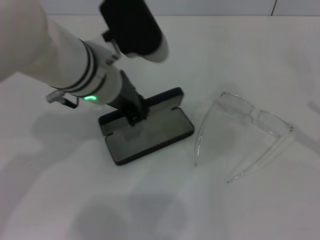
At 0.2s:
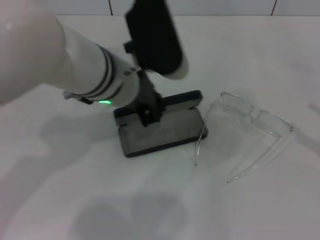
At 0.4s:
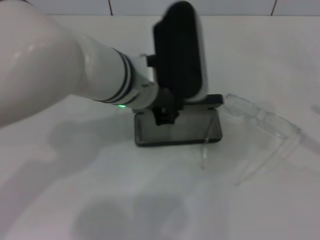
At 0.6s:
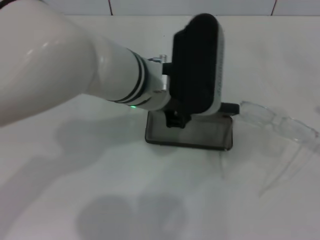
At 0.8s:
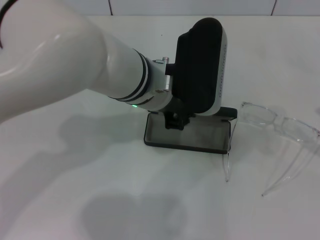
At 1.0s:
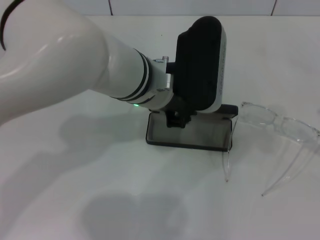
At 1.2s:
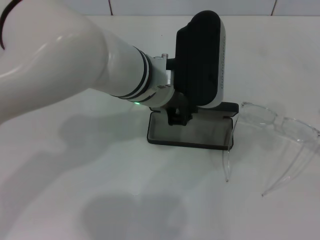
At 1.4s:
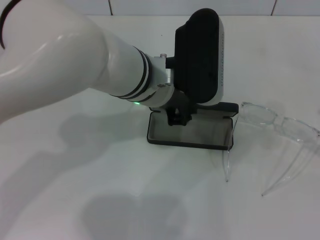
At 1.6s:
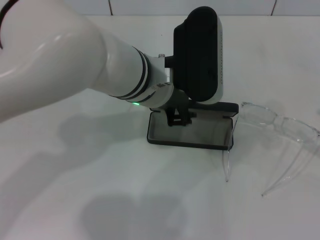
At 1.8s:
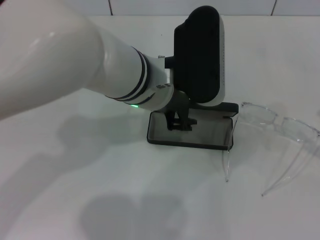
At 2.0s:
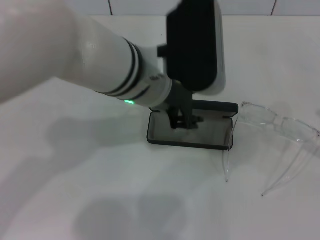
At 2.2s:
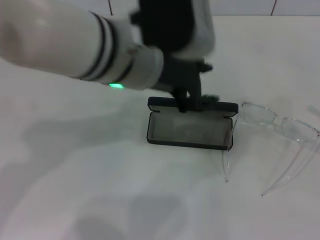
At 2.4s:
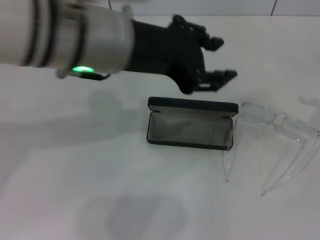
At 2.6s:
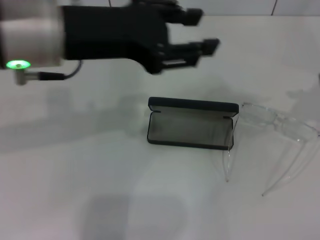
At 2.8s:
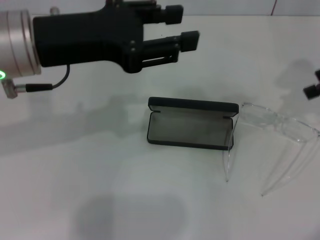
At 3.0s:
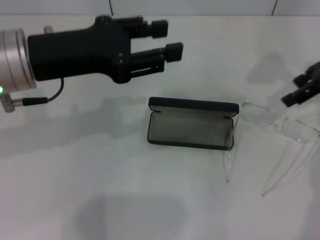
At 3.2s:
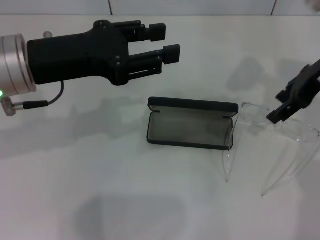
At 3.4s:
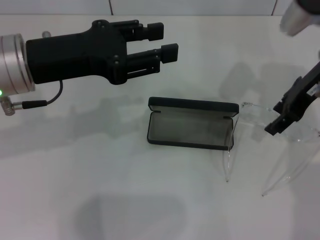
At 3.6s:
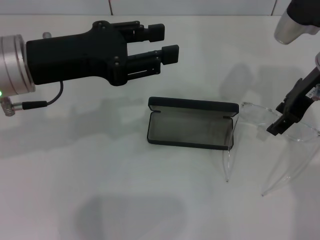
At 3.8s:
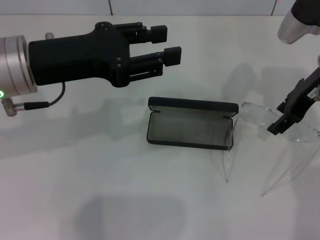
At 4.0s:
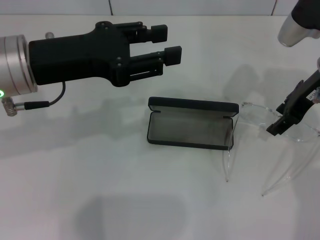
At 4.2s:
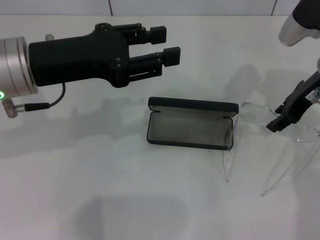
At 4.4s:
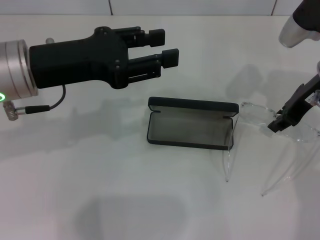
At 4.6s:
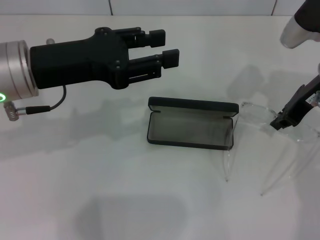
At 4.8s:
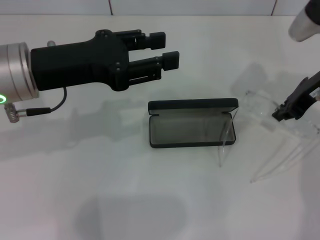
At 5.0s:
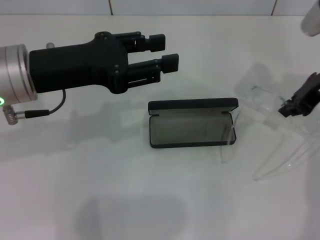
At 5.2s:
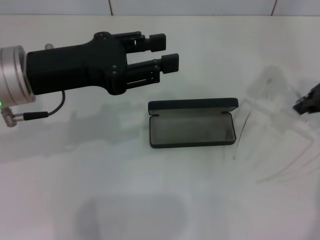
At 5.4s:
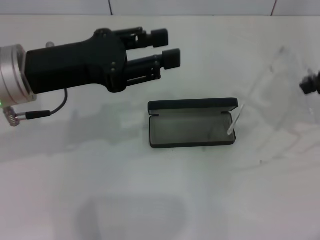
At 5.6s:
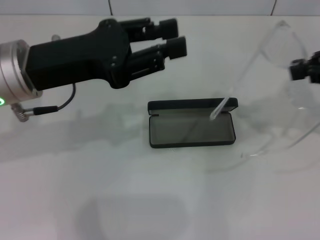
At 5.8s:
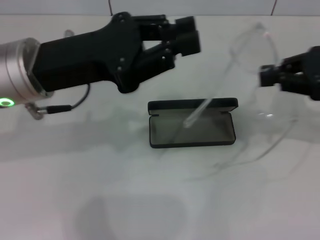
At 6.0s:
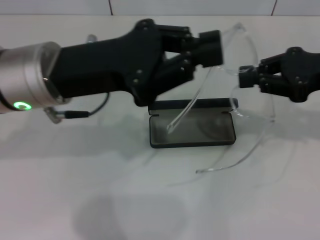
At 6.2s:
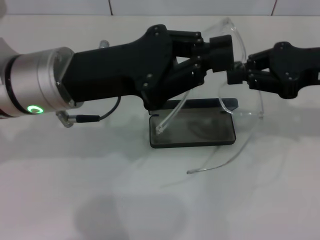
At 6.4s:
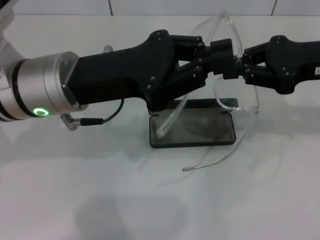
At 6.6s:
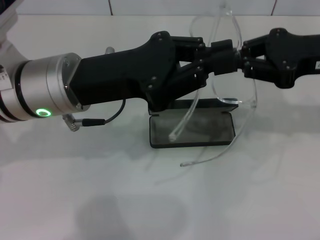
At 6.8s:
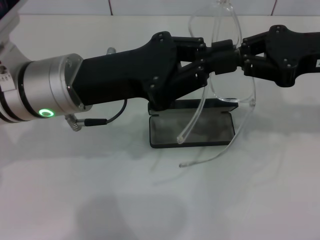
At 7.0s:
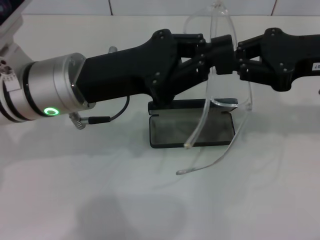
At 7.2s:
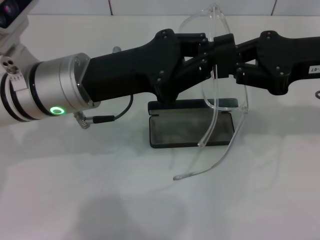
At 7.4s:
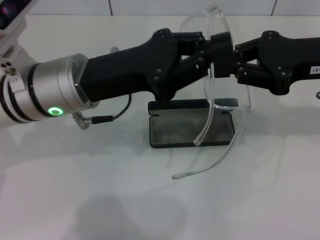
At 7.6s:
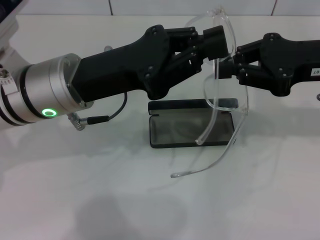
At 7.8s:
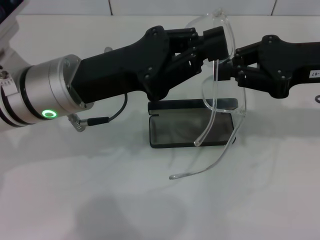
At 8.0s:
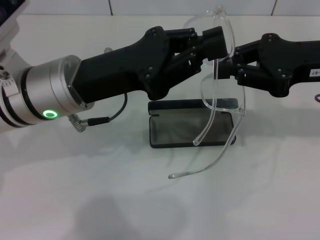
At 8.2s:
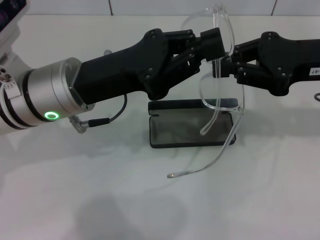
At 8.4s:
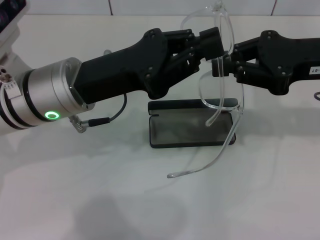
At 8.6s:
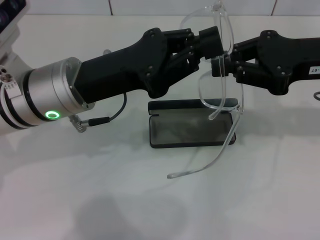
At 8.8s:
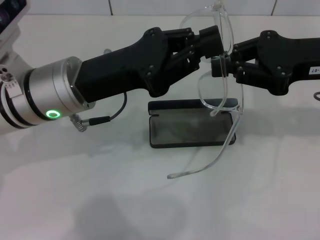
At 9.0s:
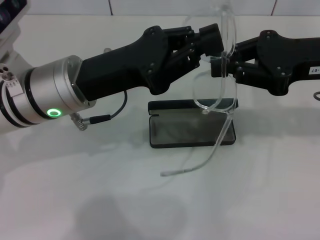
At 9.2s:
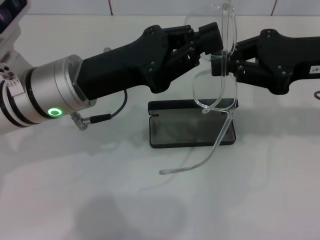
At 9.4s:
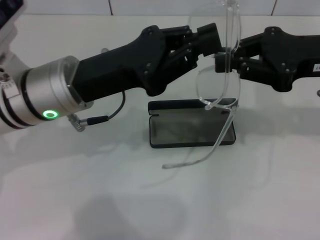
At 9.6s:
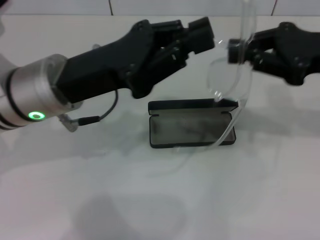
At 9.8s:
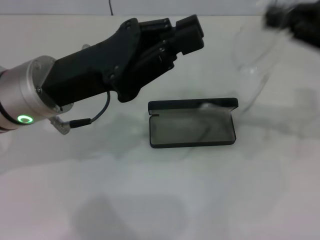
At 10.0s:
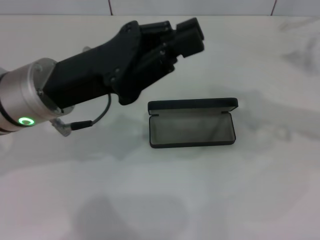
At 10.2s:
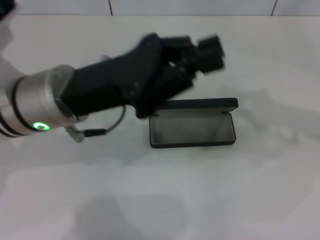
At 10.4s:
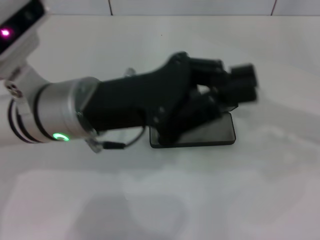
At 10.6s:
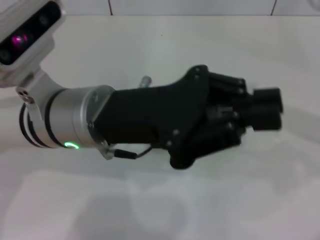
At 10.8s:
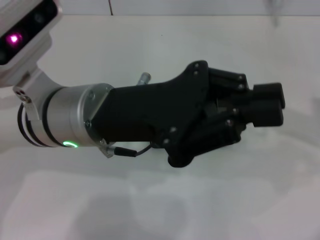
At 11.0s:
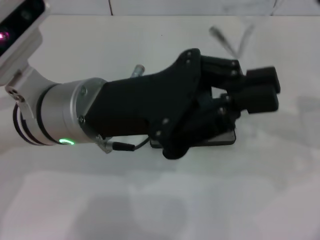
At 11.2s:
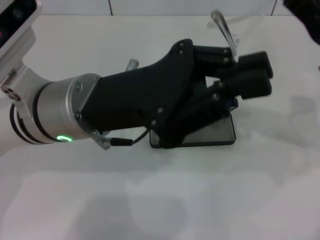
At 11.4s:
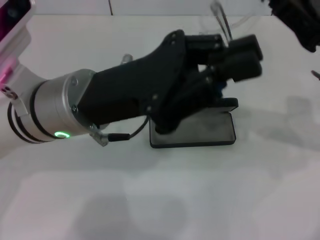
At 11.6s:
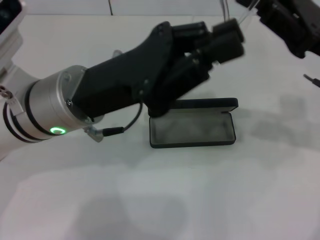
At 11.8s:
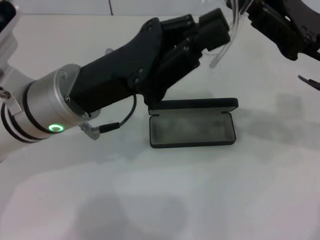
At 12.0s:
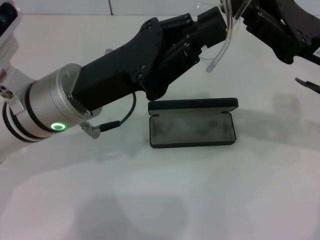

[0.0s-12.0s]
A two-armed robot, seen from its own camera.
Step, 0.0s to 1.8s: Place the glasses case in the center of the table with your left hand.
Step, 2.2s to 4.6s: Grab the eyeglass frame with your right hand.
0.0s to 1.6s: The left gripper shifts some 5 cm to the right.
1.6s to 3.0s: The right gripper shifts about 25 cm forward, to the left and upward, while the left gripper goes roughly 15 cm to the left, and opens up.
3.0s to 4.4s: The right gripper is displaced downward and to the left by approximately 10 cm.
4.4s to 6.0s: The left gripper closes its fingers. The right gripper goes roughly 5 cm backward, and closes its fingers.
6.0s to 7.6s: There are only small adjustments of the grippers.
7.6s to 9.0s: Both grippers stay put.
9.0s to 10.4s: The right gripper heads to the right, covering roughly 5 cm.
10.4s to 12.0s: The right gripper is displaced to the left by some 10 cm.

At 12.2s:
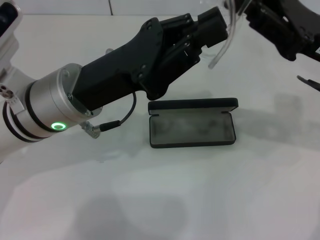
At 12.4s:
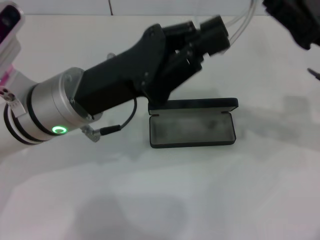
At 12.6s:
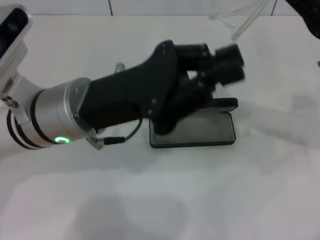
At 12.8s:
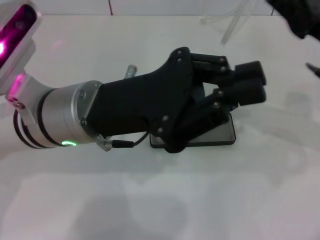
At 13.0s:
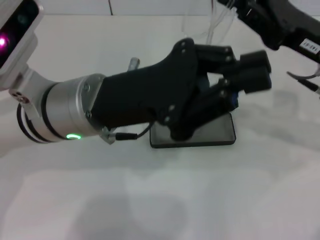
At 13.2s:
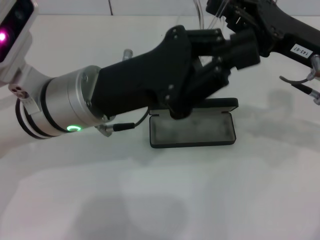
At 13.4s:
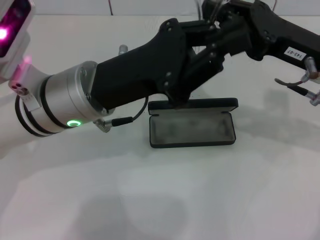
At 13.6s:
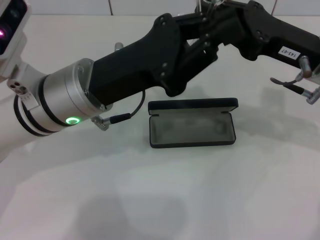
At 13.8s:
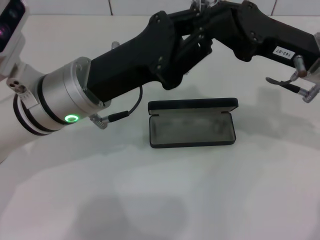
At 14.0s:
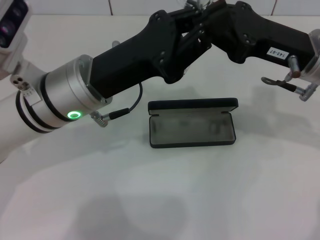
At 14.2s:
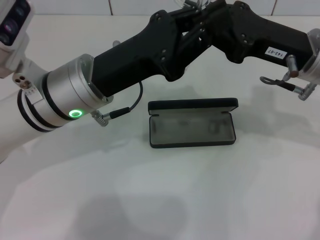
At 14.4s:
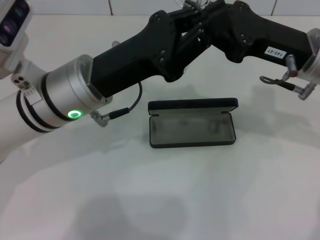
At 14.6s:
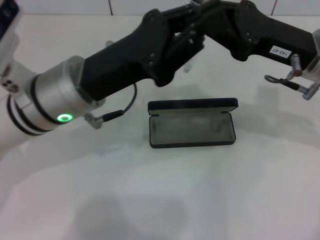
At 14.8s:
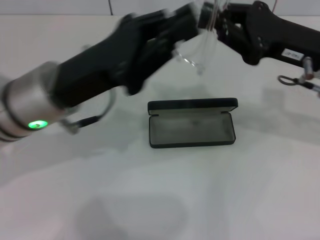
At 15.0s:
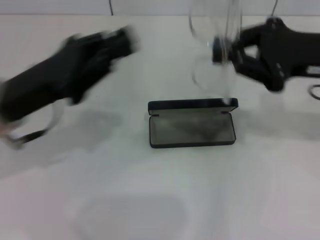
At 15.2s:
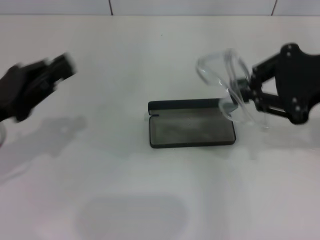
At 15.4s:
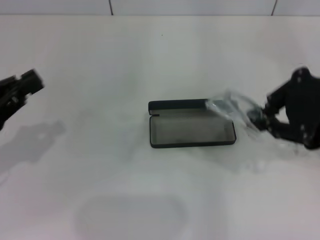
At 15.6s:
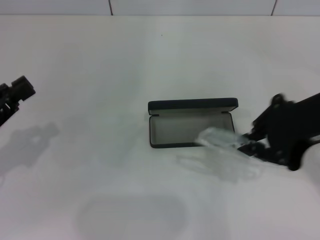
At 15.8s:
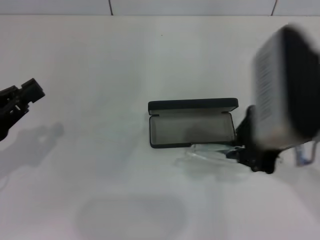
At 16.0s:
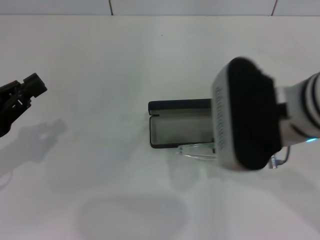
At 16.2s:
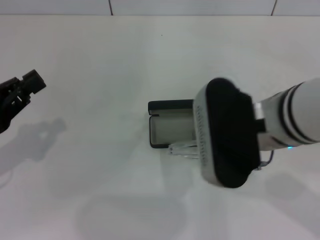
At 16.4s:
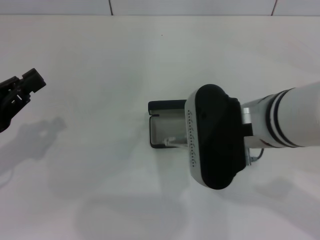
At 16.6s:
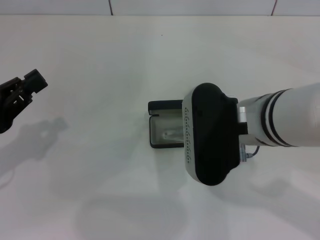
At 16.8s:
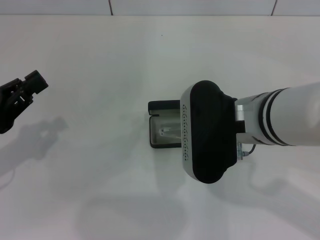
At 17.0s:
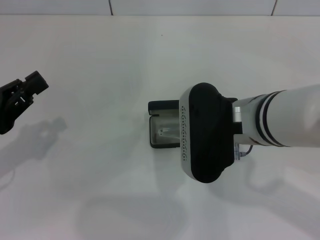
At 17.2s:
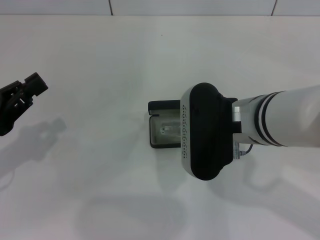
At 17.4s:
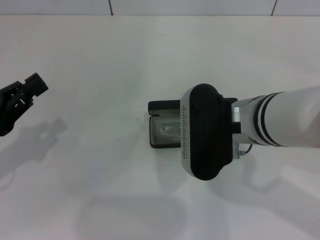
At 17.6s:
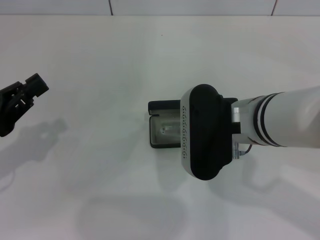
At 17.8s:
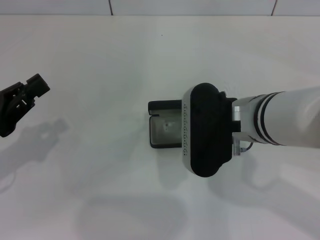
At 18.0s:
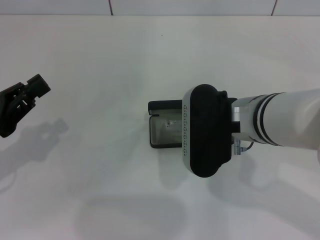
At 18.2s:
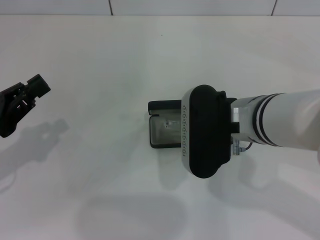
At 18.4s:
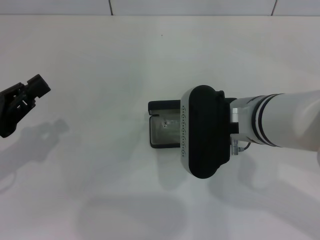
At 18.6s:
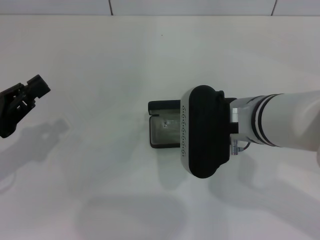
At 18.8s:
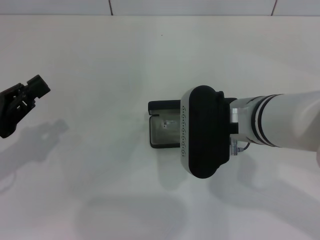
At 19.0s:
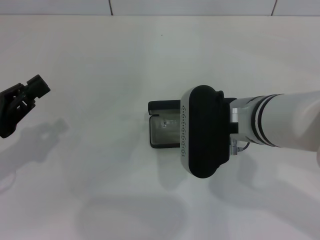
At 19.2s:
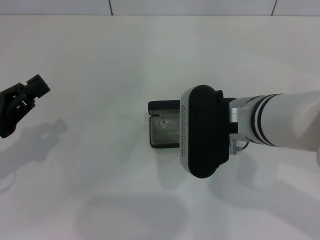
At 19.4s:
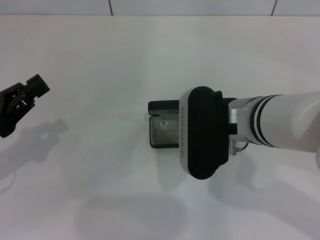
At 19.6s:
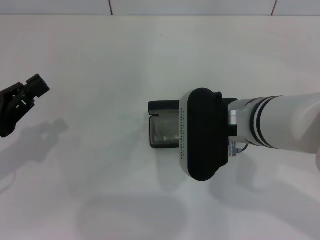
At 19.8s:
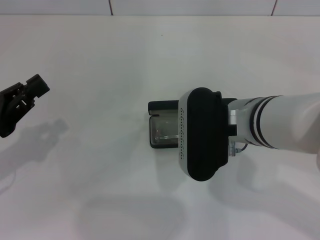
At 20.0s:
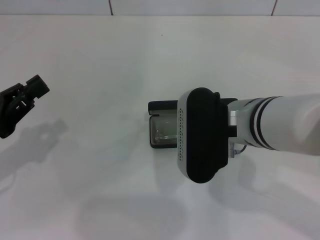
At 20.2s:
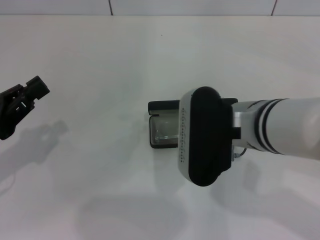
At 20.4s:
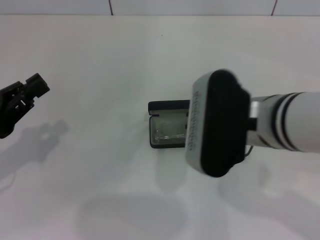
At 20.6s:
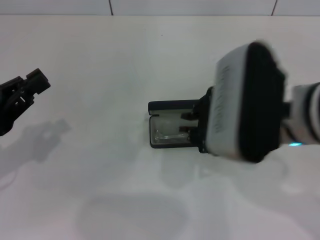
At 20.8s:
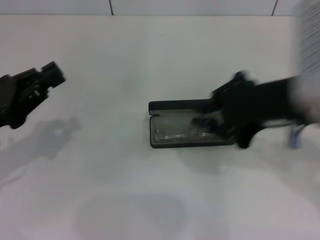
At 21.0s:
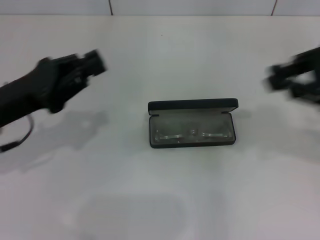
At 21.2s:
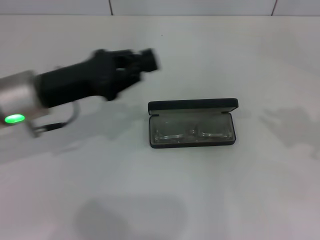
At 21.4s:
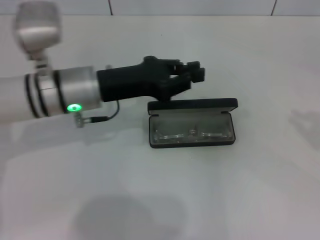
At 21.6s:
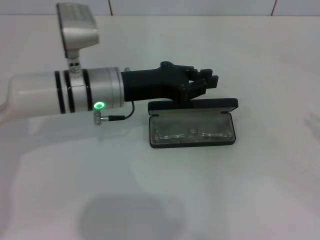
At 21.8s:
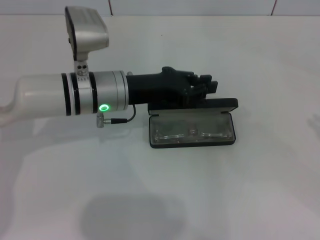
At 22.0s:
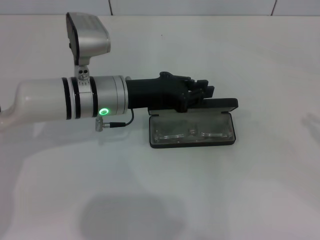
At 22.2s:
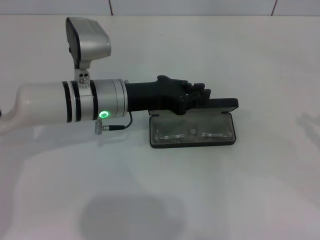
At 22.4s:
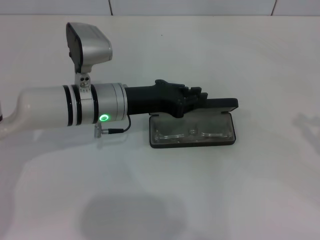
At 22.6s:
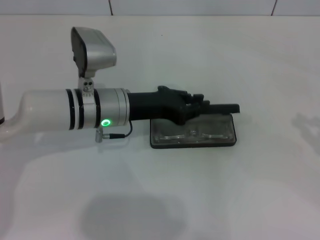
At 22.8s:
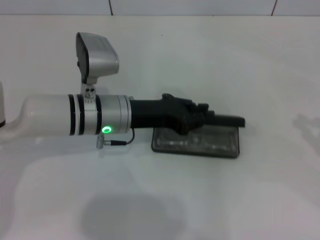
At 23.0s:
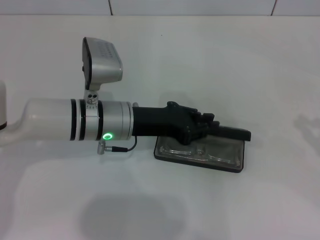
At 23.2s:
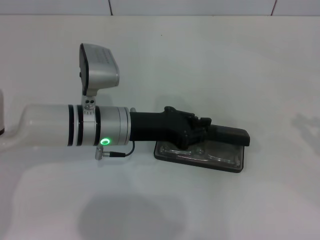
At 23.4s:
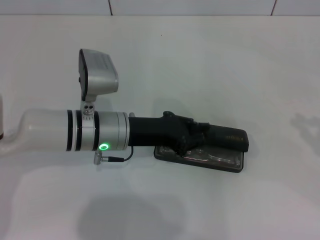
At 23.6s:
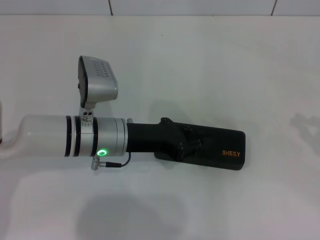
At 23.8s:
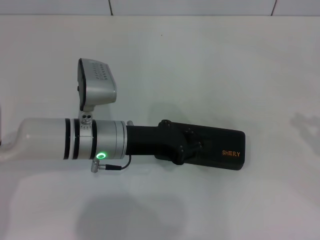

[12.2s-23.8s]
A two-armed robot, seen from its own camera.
Step, 12.2s to 14.4s: Fold the frame with your left hand.
Step, 14.8s to 19.8s: Put the glasses into the case with your right hand.
Step, 20.0s to 23.6s: Close the glasses case with your left hand.
12.2s to 13.6s: The grippers stay close to where they were, moving slightly.
13.6s to 15.0s: The left gripper shifts approximately 10 cm to the left.
15.0s to 16.6s: Both grippers travel together to the left and backward, about 15 cm.
16.6s to 18.0s: There are only small adjustments of the grippers.
18.0s to 19.4s: The two grippers keep their place.
19.4s to 21.0s: The left gripper travels to the right and forward by about 10 cm, while the right gripper moves to the right and upward, roughly 20 cm.
21.0s to 22.4s: The right gripper moves to the right and downward, some 20 cm, while the left gripper moves to the right and forward, roughly 15 cm.
22.4s to 23.8s: The grippers make only small movements.
